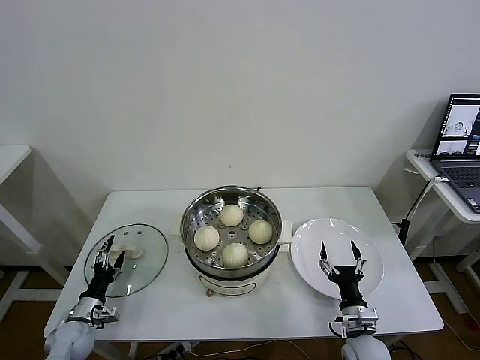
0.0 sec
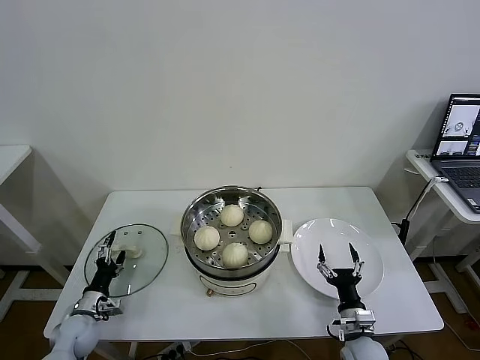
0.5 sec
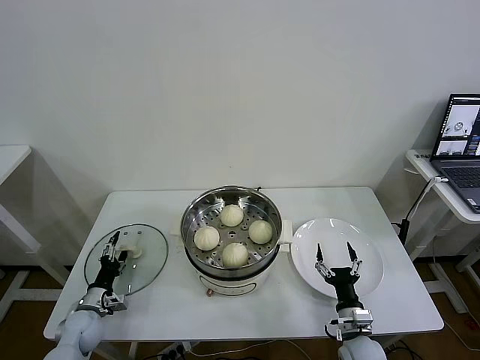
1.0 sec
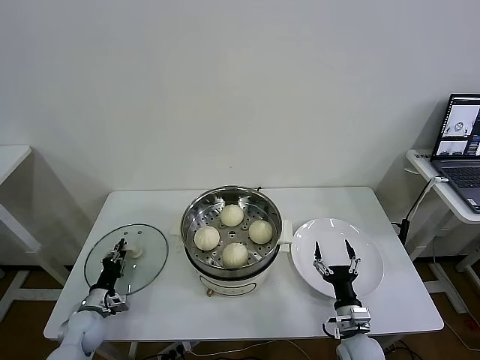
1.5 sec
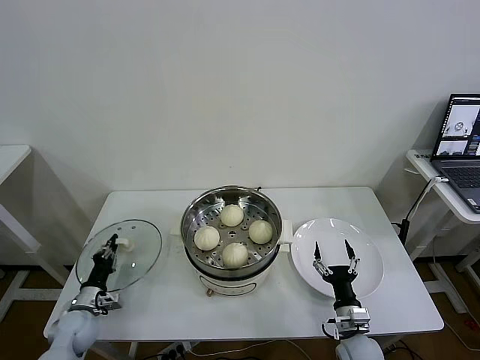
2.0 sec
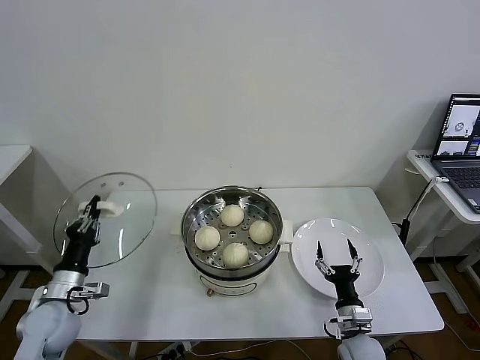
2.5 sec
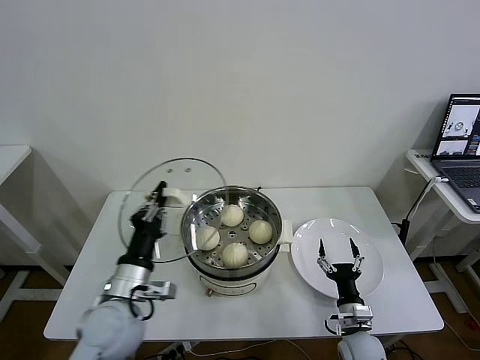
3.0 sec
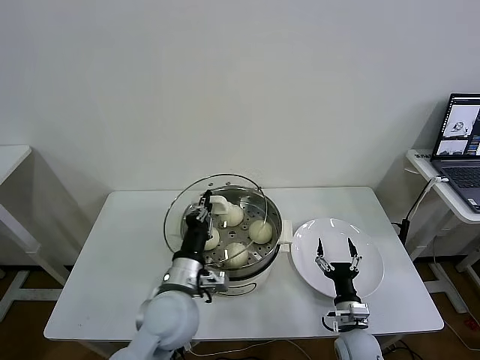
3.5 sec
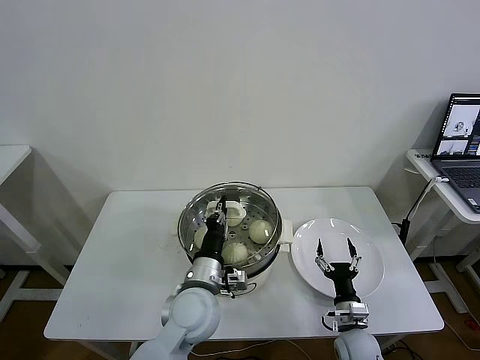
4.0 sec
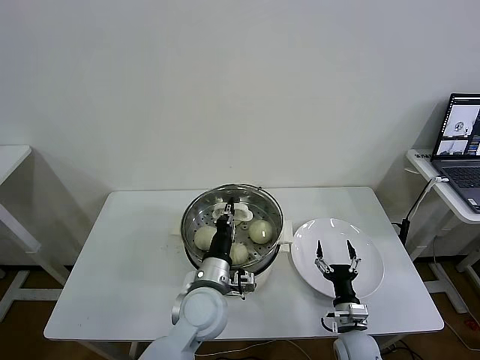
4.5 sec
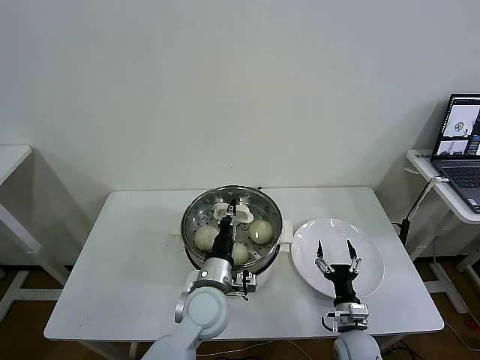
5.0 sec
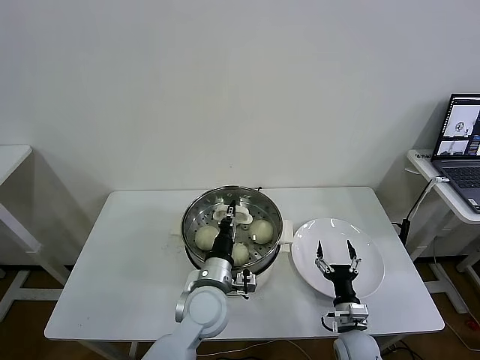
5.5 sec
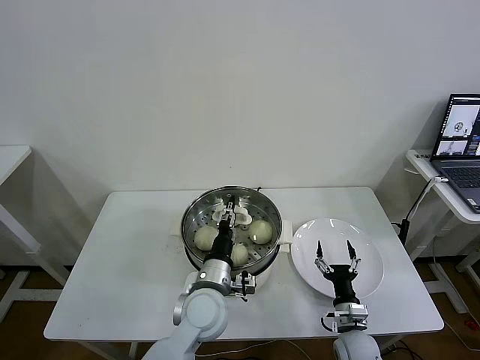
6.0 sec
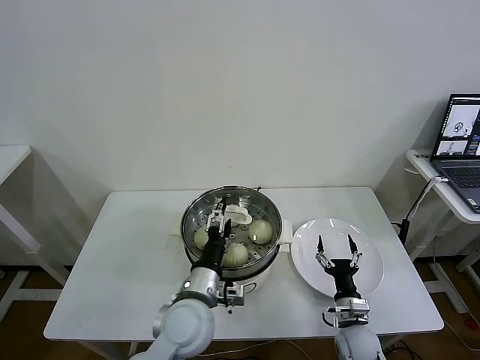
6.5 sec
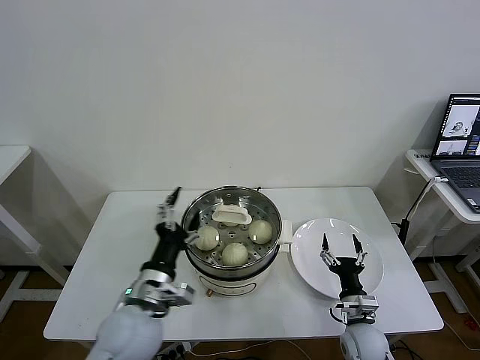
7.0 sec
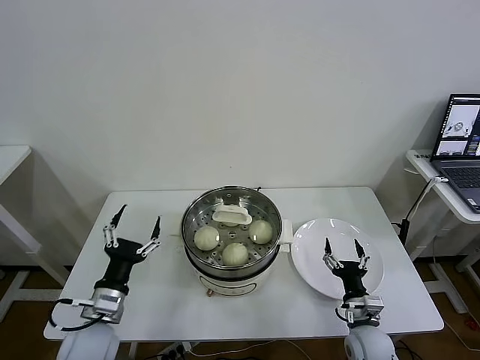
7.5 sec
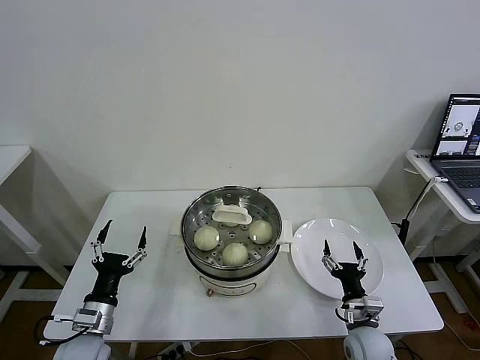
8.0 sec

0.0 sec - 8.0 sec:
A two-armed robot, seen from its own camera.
Task of the whole recording: take steamed baozi put them in steamer then cover it.
Step, 2.0 sec - 5.5 sec: Place the pot lid on the steamer with left gripper.
0.0 sec - 2.0 sec: The left gripper closes.
2.0 sec - 4.0 sec: The left gripper moves to the right and upward, roughly 35 cm.
4.0 sec - 6.0 sec: The left gripper opens its fingers.
6.0 sec - 8.0 sec: The left gripper goes roughly 25 cm to the left, and opens.

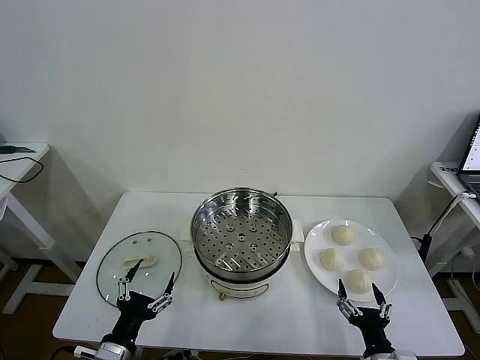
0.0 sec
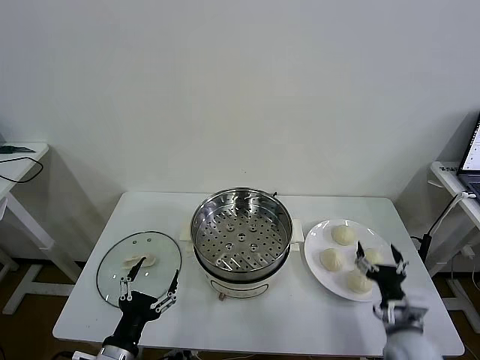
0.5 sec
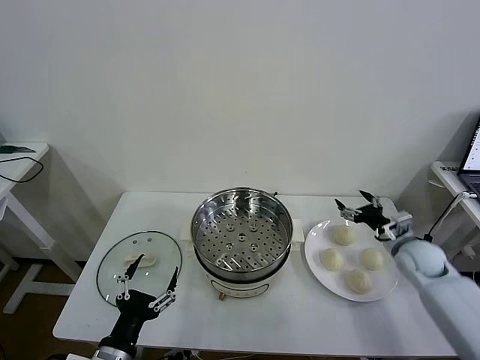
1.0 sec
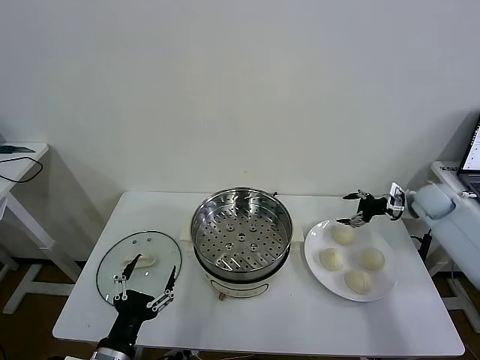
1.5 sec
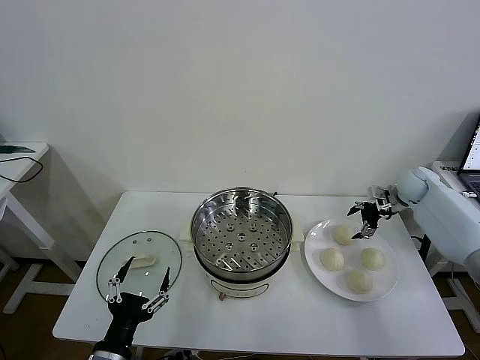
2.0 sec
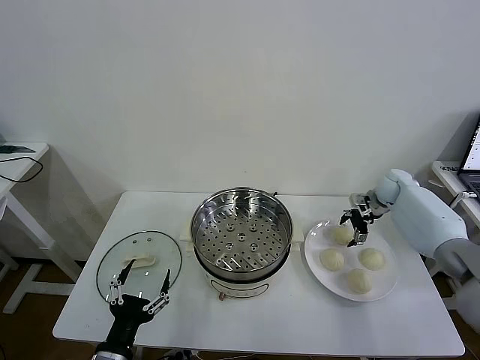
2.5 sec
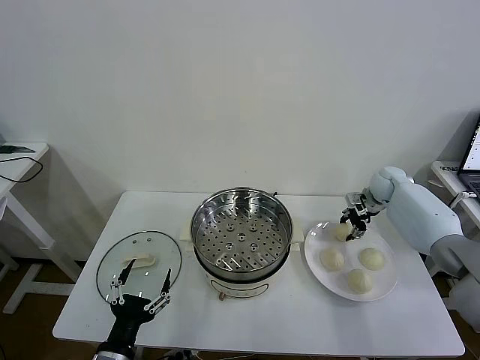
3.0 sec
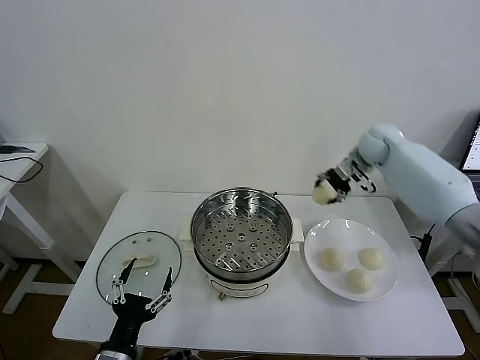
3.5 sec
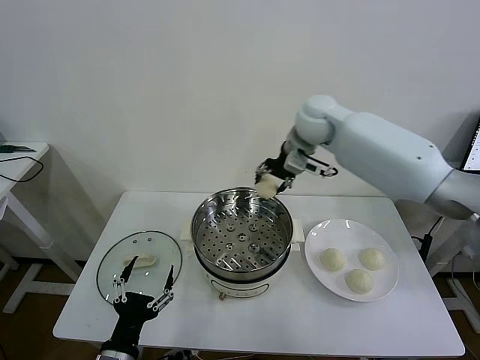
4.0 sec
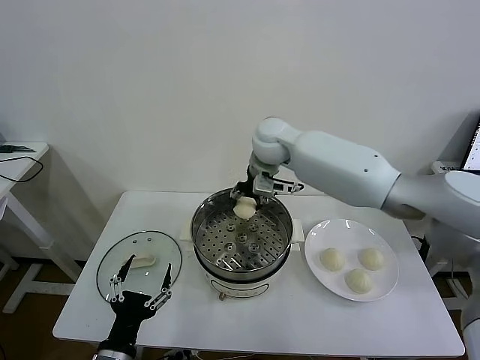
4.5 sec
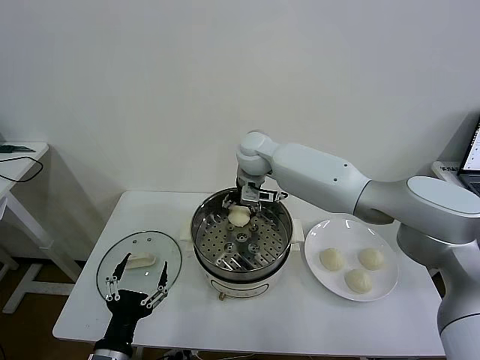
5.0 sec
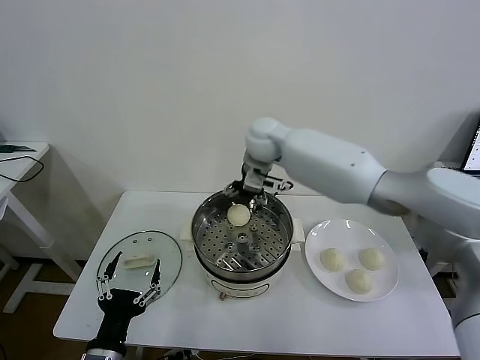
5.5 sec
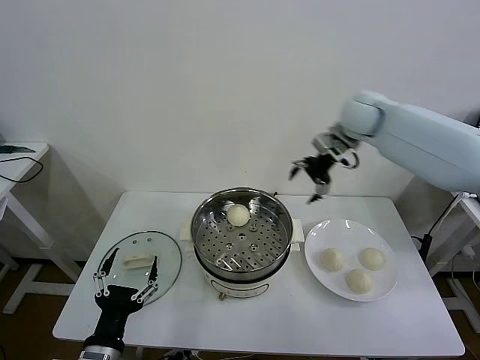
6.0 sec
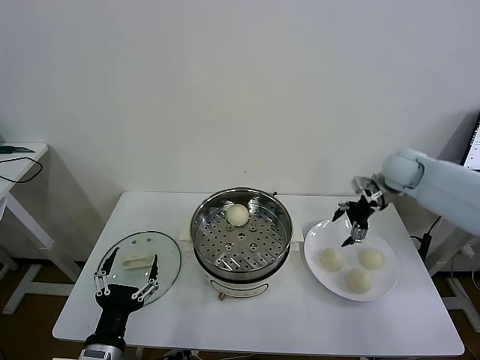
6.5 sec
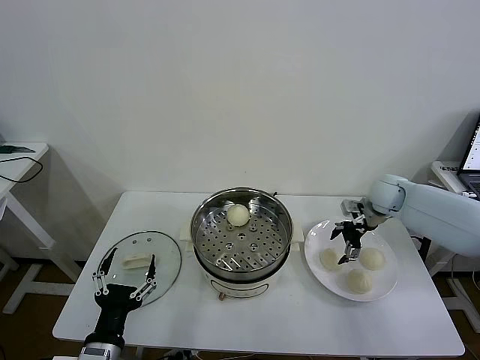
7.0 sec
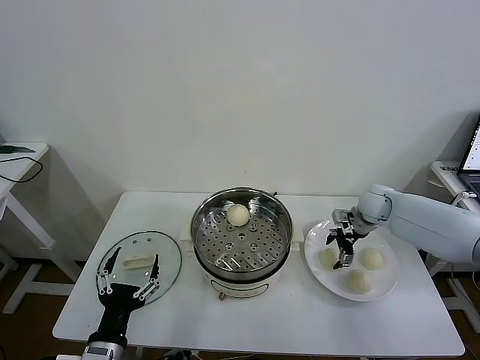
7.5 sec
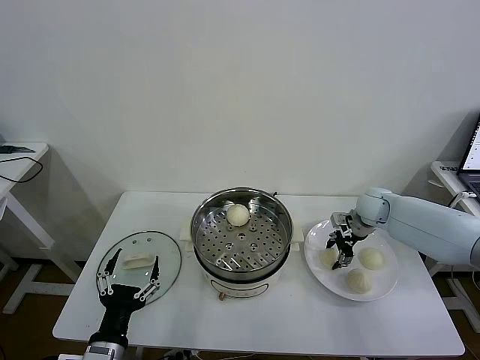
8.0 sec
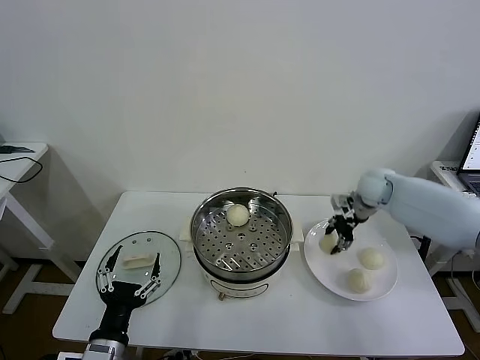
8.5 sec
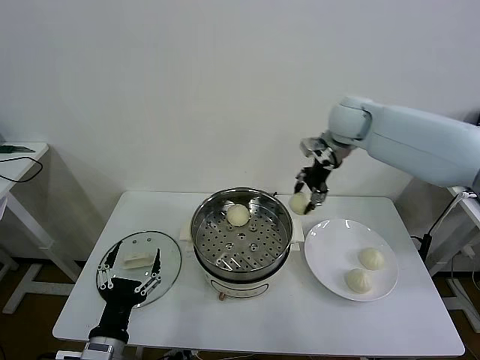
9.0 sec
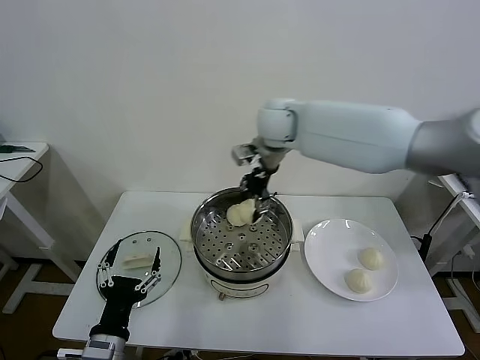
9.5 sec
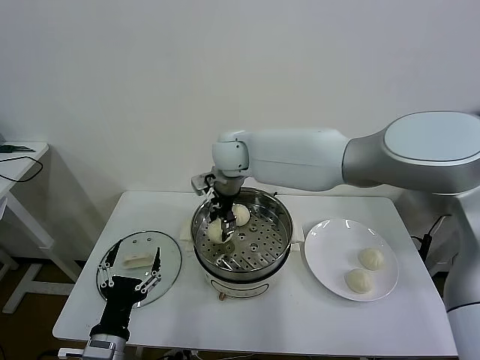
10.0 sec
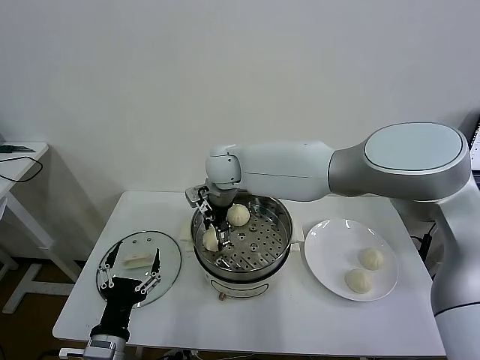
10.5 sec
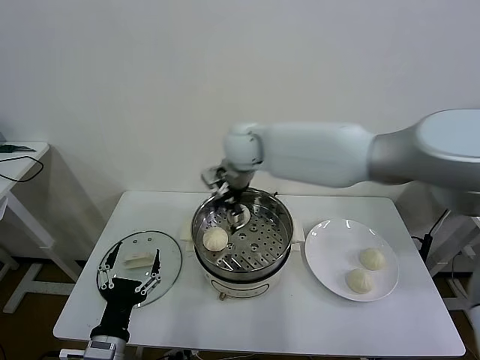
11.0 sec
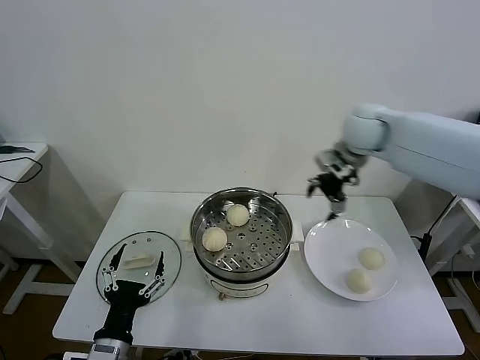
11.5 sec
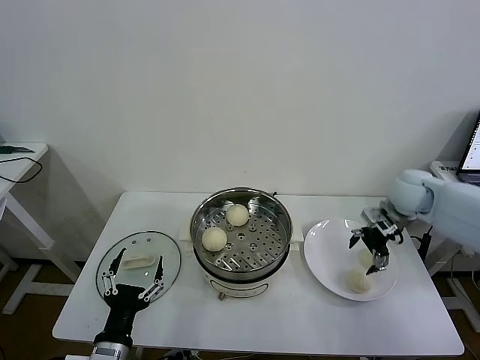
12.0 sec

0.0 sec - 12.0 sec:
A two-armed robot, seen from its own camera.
Task of the whole recording: take steamed baozi put them in steamer then cover it.
Step, 0.0 sec - 2.5 sec: Grasp the baozi in the plate with right gripper.
Step, 3.0 sec - 5.0 sec: Place the baozi on the steamer with right gripper.
Step, 5.5 sec - 8.0 sec: Grasp the baozi in the plate with right gripper.
Step, 8.5 sec - 10.5 sec: Place the baozi on the steamer with right gripper.
2.0 sec - 4.0 sec: The right gripper is displaced to the left and upward by about 40 cm, and closes.
4.0 sec - 6.0 sec: The right gripper is displaced to the right by about 20 cm, and opens its fingers.
6.0 sec - 8.0 sec: The right gripper travels downward by about 20 cm, and closes.
8.0 sec - 10.0 sec: The right gripper heads to the left and upward, covering some 40 cm.
10.0 sec - 12.0 sec: The right gripper shifts approximately 40 cm to the right, and opens up.

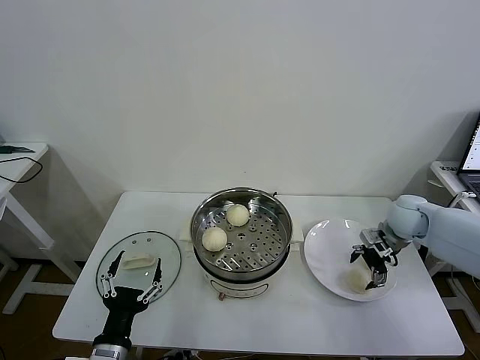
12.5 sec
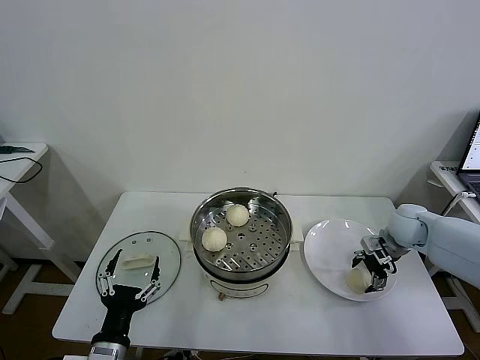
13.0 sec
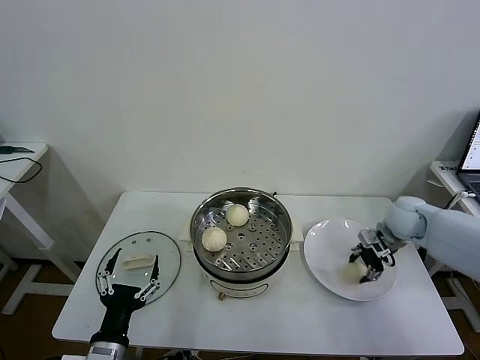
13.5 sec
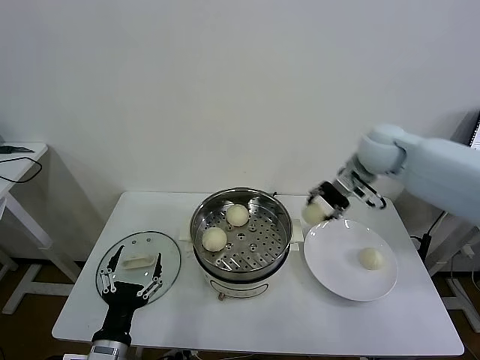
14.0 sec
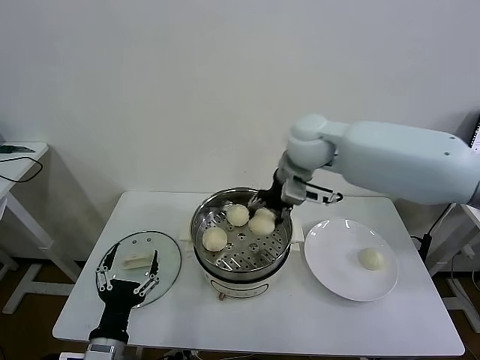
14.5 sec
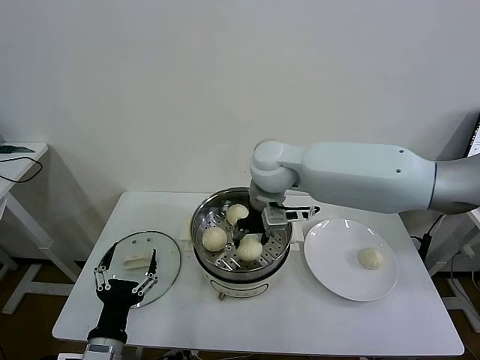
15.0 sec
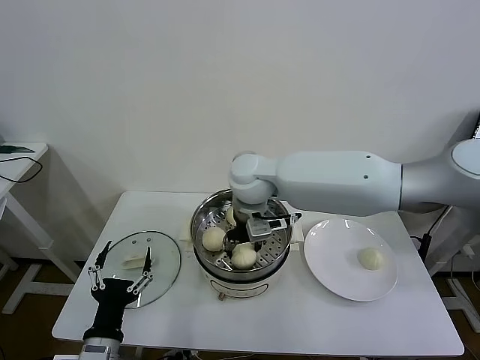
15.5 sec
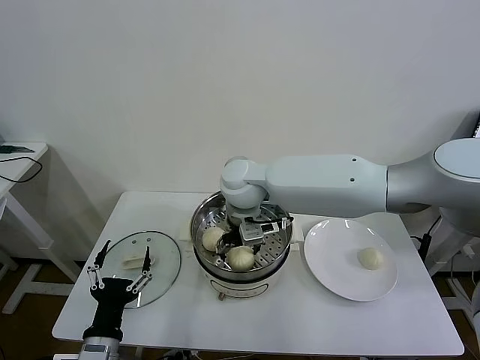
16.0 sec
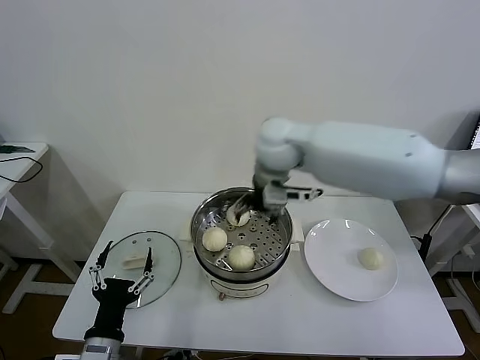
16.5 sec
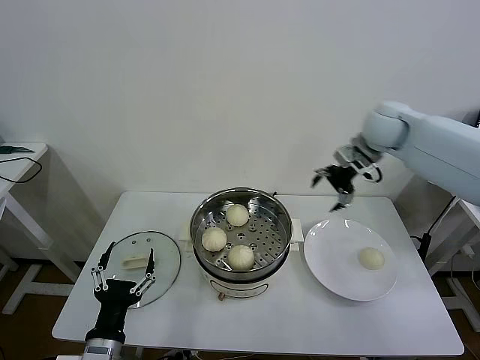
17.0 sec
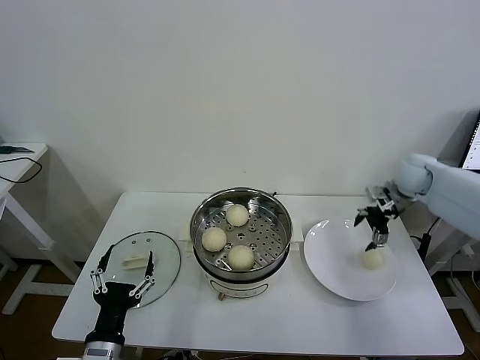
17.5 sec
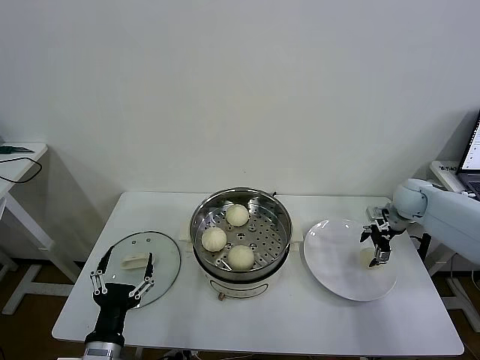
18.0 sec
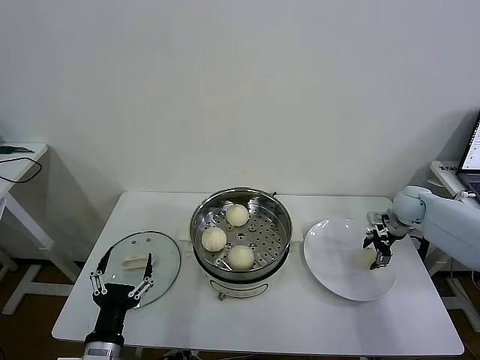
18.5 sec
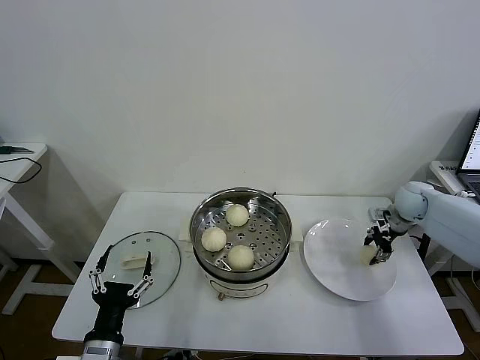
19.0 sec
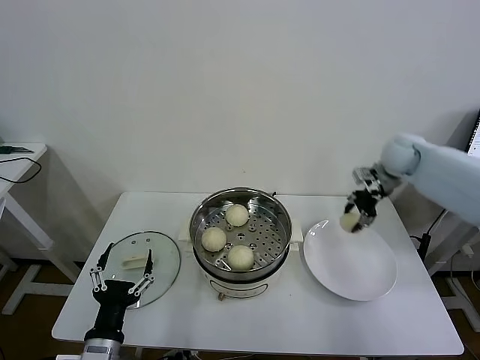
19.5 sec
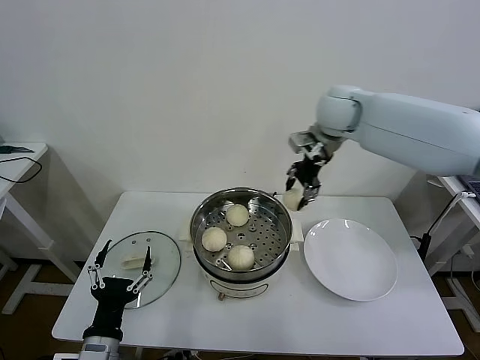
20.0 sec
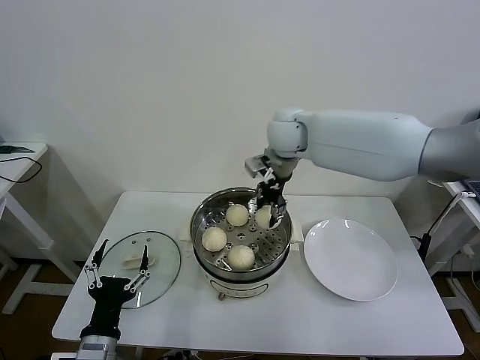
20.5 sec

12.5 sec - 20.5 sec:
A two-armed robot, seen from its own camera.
Task of the whole recording: take steamed baozi put them in steamer then cover it.
Step, 13.5 sec - 15.5 sec: Place the baozi on the steamer with right gripper.
Step, 16.5 sec - 18.5 sec: Grasp the baozi in the plate with right gripper.
12.5 sec - 14.5 sec: The right gripper is displaced to the left and upward by some 35 cm, and closes up.
14.5 sec - 16.5 sec: The right gripper goes to the left and returns, roughly 10 cm each way, and opens up.
16.5 sec - 18.5 sec: The right gripper goes approximately 40 cm to the right and downward, and closes.
18.5 sec - 20.5 sec: The right gripper goes approximately 40 cm to the left and upward, and closes up.
